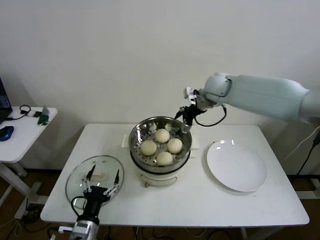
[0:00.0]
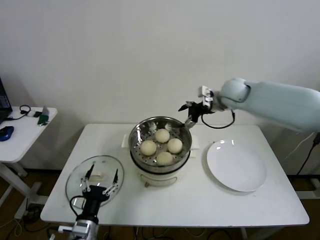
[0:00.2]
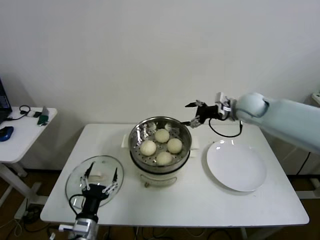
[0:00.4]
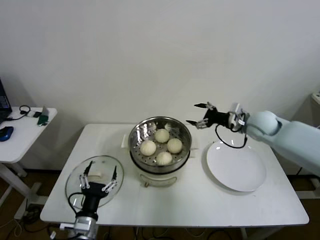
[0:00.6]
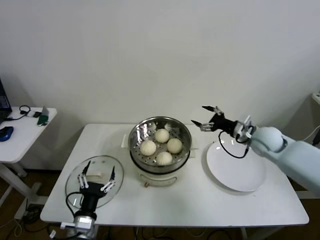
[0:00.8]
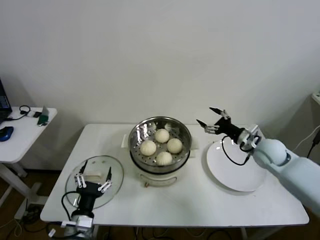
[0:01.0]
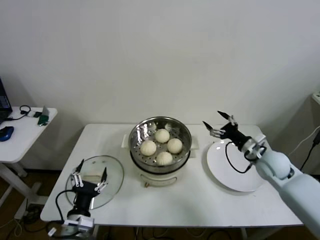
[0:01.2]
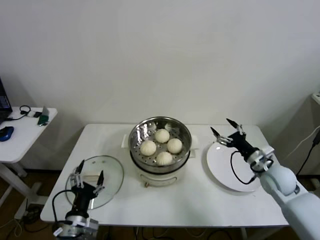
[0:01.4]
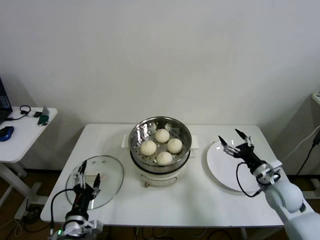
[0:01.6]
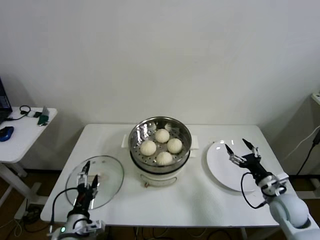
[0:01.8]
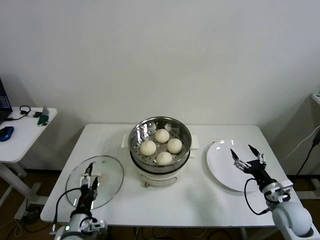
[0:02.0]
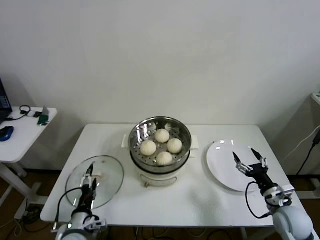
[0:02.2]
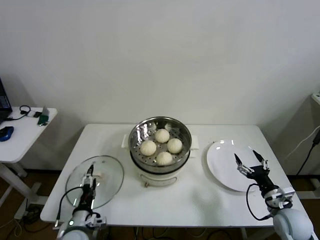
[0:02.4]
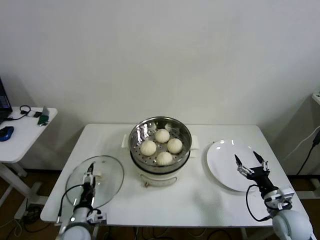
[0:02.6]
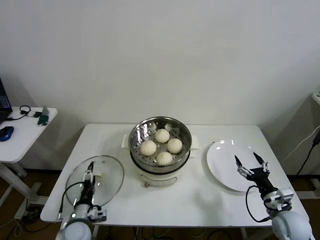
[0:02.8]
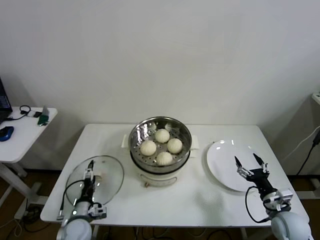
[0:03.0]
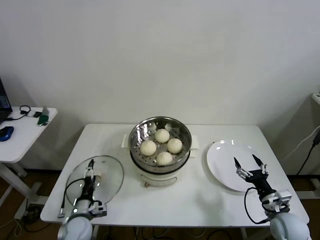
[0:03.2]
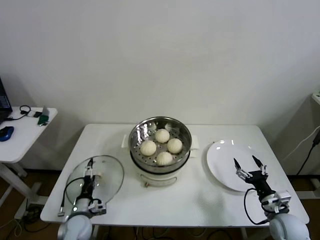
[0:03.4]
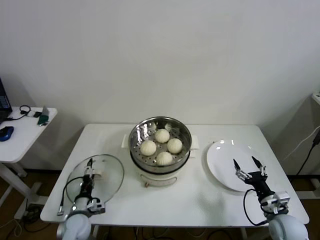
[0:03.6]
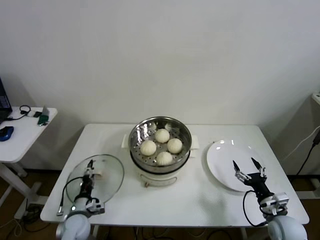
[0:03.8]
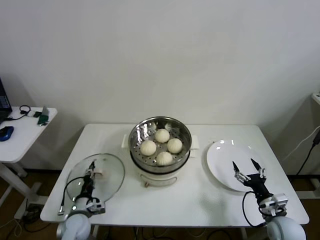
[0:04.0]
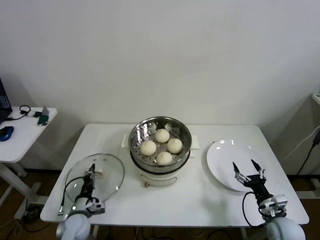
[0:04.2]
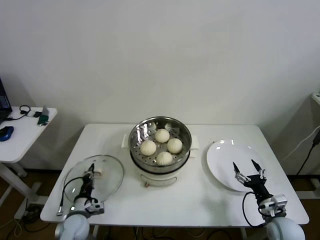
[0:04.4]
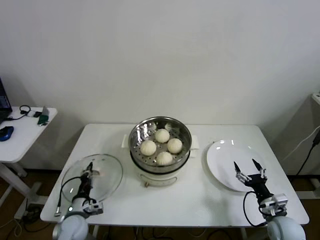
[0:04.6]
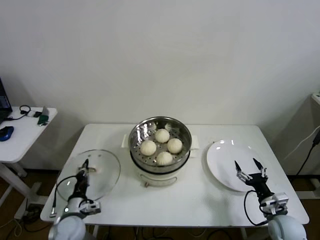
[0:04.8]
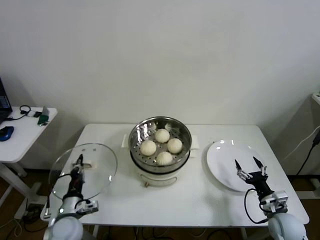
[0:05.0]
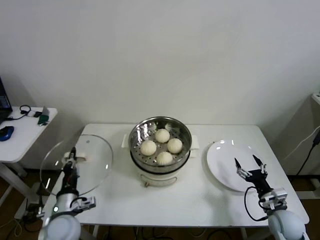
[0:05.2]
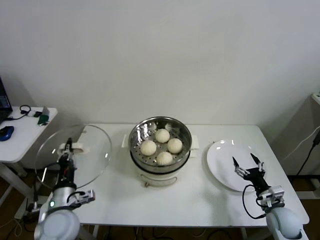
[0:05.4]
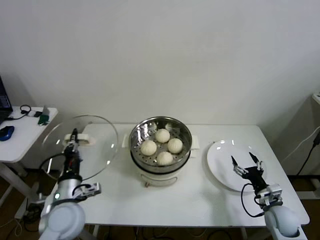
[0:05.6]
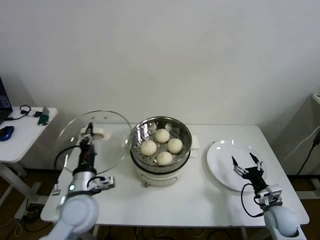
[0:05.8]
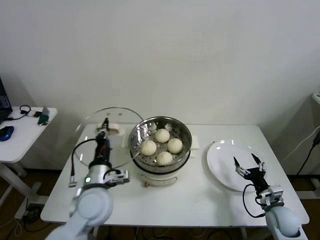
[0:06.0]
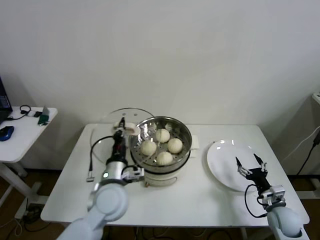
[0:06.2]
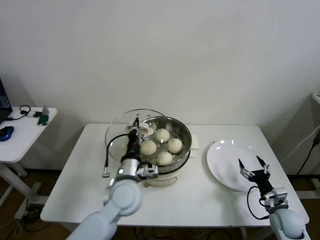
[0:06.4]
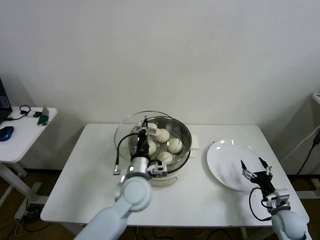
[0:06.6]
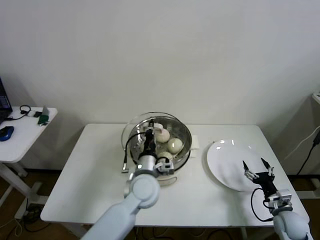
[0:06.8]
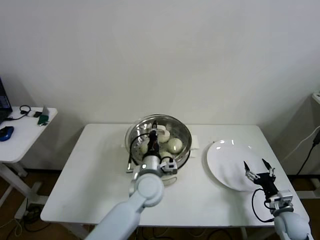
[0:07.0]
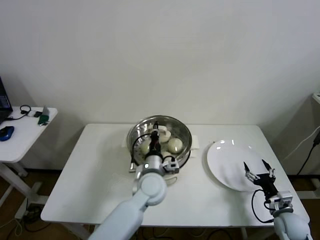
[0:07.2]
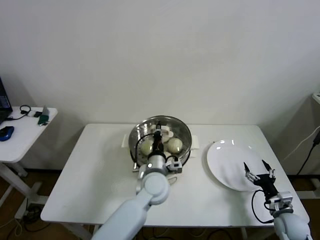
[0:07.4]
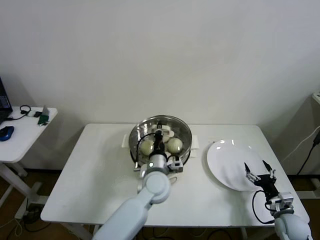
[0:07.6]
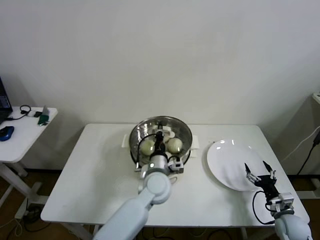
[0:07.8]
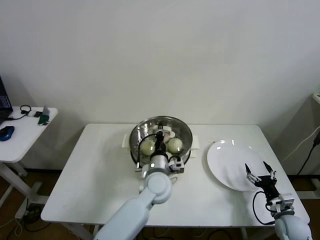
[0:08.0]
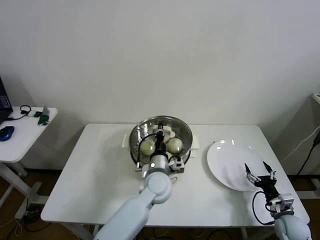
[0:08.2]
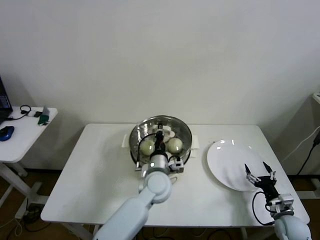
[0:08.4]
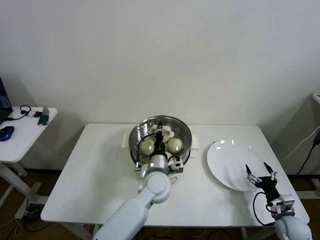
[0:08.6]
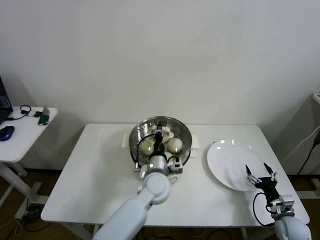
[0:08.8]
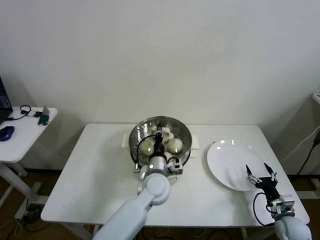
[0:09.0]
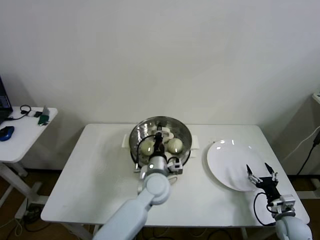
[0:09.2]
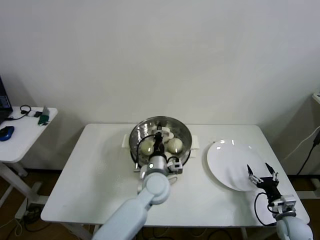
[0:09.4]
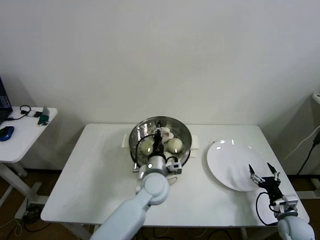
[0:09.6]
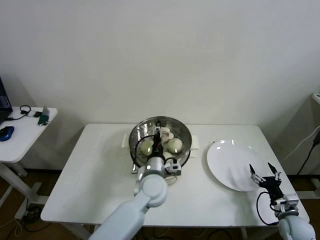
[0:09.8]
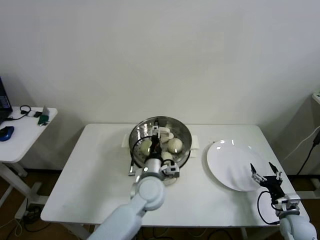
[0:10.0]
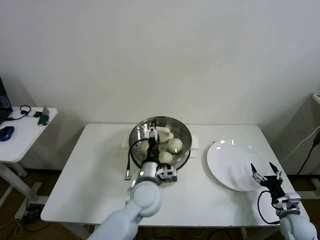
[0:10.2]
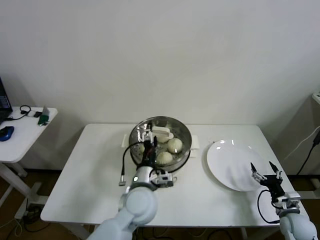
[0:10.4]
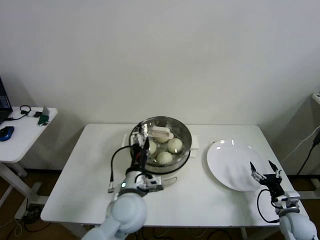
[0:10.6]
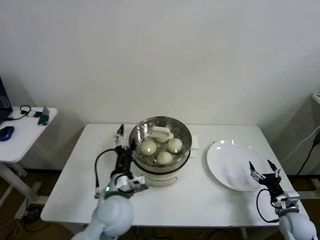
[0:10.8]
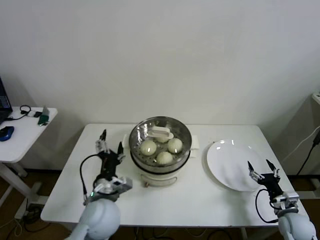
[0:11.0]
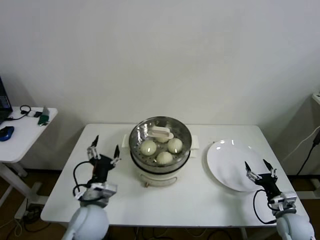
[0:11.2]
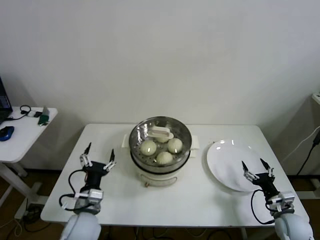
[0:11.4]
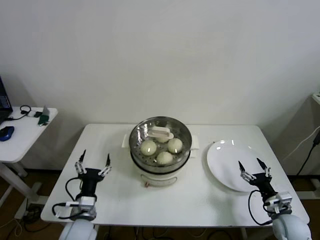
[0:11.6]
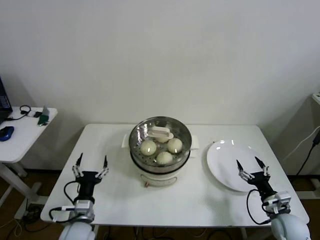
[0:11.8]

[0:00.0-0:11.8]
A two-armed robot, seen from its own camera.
Step, 0:00.0 to 0:04.2: Grasp the pot lid with left gripper.
Step, 0:04.4 to 0:10.4: Place the pot lid on the steamer with left gripper.
0:00.0 to 0:01.4: The right gripper is displaced backward, downward and to the right by some 35 cm.
0:01.4 to 0:03.0: The right gripper is displaced backward and downward by some 15 cm, while the left gripper is displaced downward and forward by roughly 15 cm.
0:03.0 to 0:04.4: The left gripper closes up.
0:04.4 to 0:06.0: The left gripper is displaced upward and to the right by approximately 25 cm.
0:06.0 to 0:07.4: The left gripper heads to the right and forward, covering some 20 cm.
0:07.4 to 0:08.8: The grippers stay close to where they were, moving slightly.
0:08.8 to 0:10.4: The left gripper heads backward, covering approximately 5 cm, and opens up.
0:10.4 to 0:11.8: The right gripper moves approximately 5 cm, while the left gripper goes some 20 cm to the left and downward.

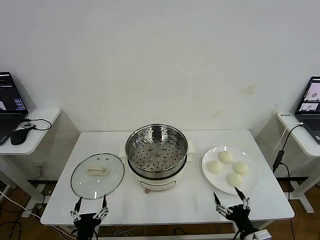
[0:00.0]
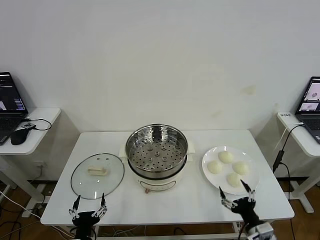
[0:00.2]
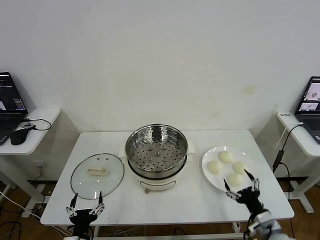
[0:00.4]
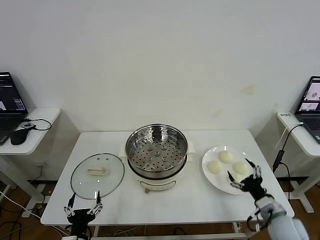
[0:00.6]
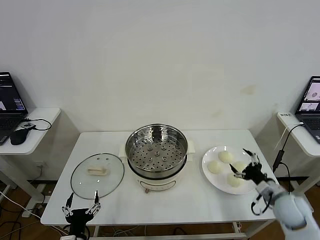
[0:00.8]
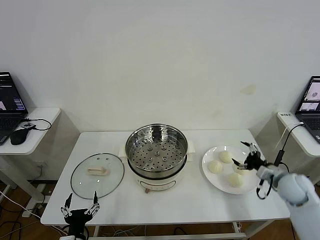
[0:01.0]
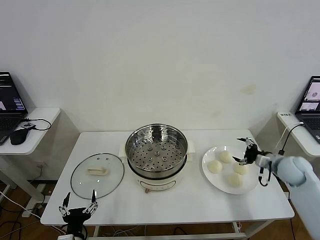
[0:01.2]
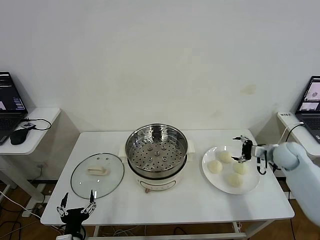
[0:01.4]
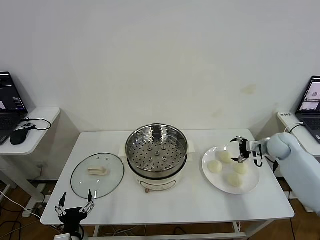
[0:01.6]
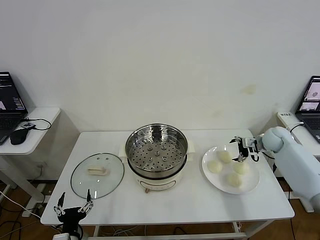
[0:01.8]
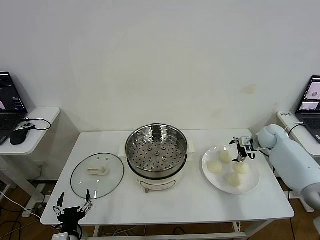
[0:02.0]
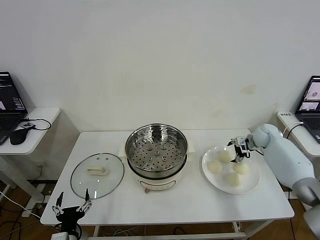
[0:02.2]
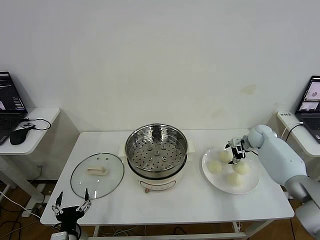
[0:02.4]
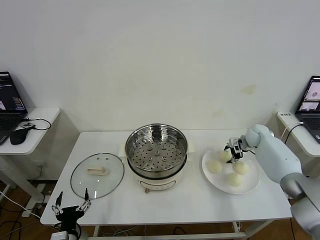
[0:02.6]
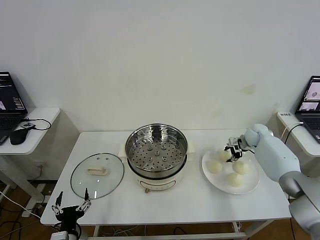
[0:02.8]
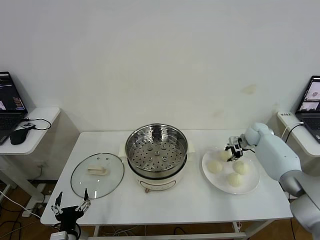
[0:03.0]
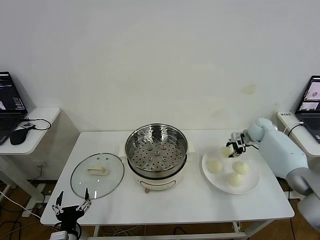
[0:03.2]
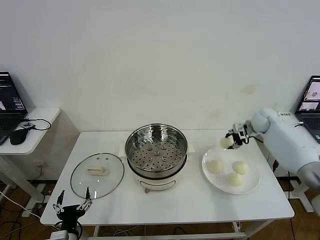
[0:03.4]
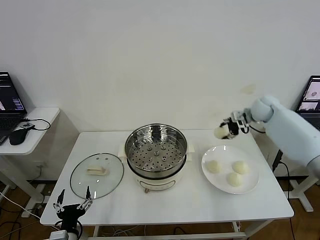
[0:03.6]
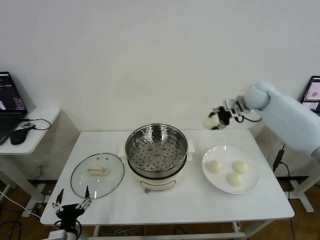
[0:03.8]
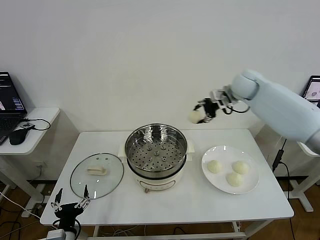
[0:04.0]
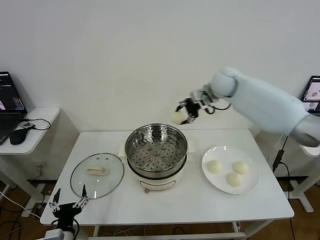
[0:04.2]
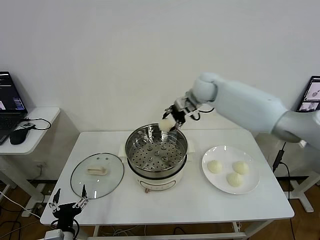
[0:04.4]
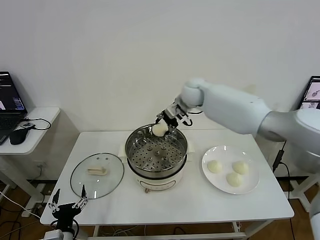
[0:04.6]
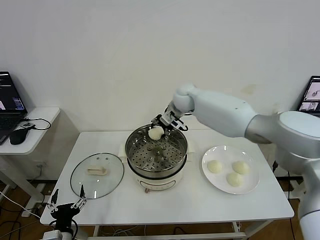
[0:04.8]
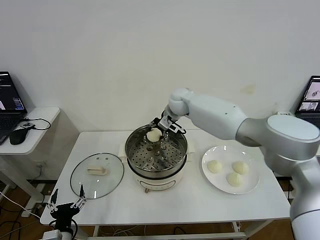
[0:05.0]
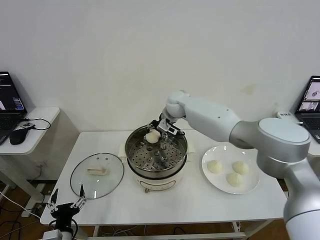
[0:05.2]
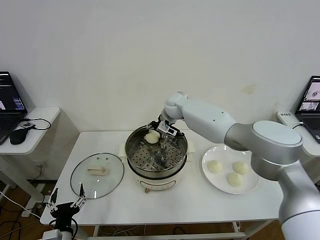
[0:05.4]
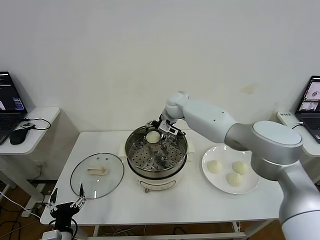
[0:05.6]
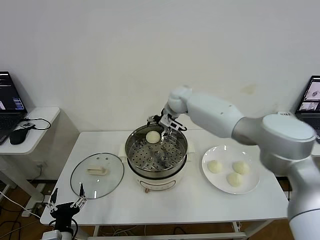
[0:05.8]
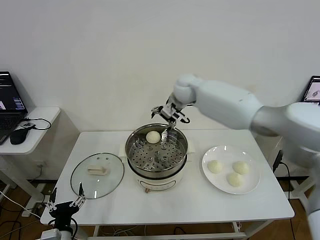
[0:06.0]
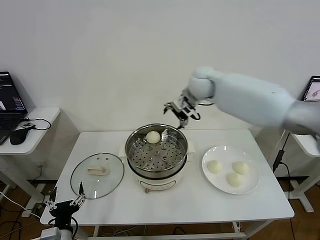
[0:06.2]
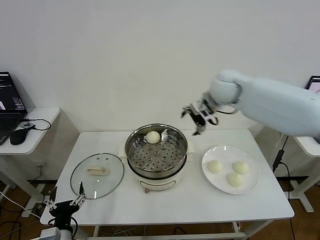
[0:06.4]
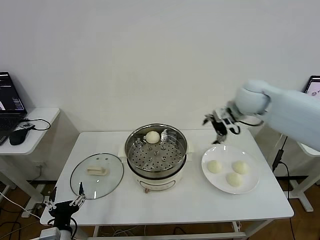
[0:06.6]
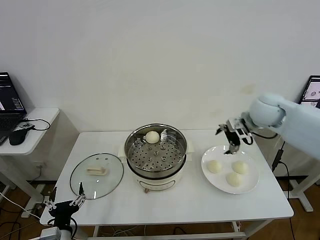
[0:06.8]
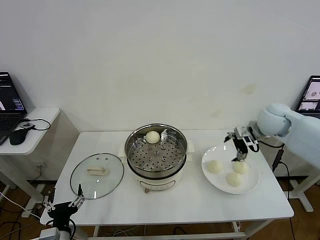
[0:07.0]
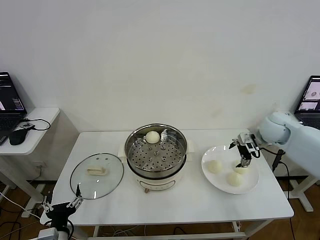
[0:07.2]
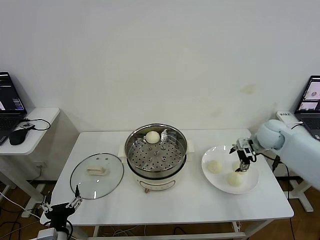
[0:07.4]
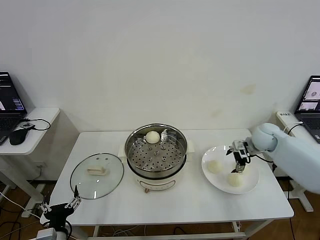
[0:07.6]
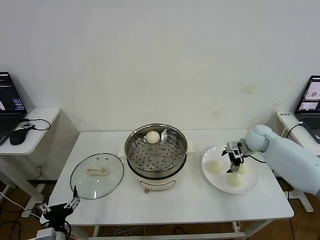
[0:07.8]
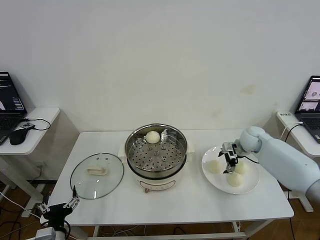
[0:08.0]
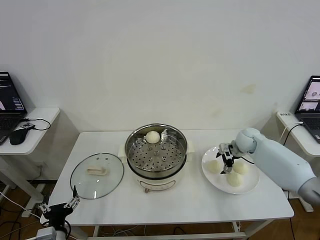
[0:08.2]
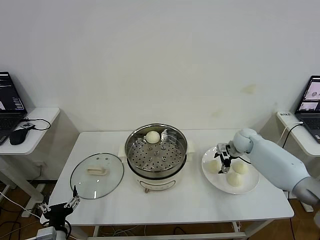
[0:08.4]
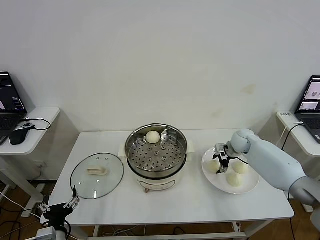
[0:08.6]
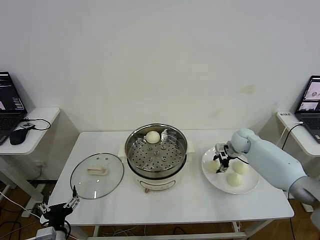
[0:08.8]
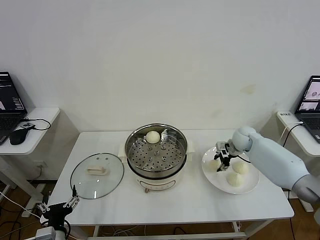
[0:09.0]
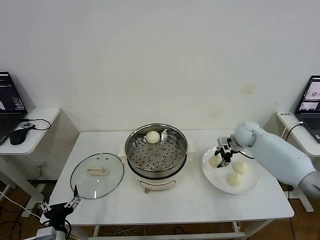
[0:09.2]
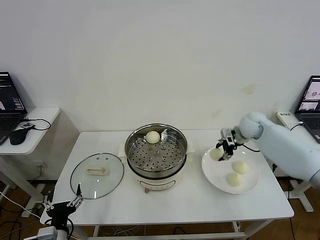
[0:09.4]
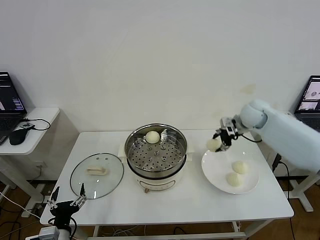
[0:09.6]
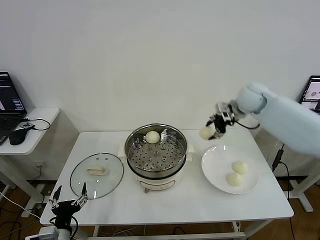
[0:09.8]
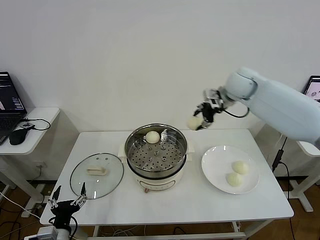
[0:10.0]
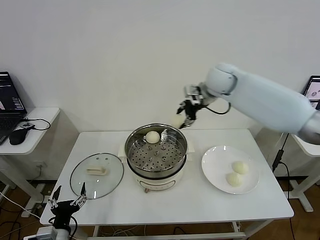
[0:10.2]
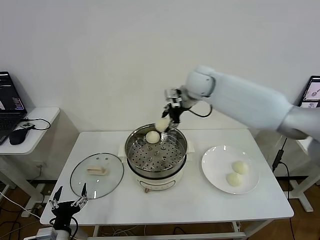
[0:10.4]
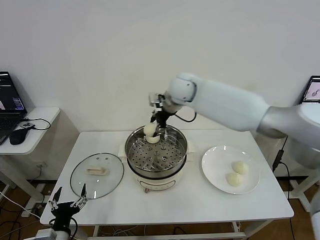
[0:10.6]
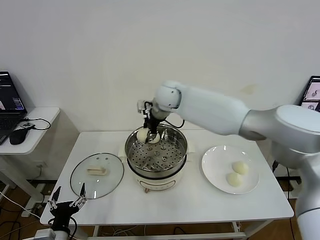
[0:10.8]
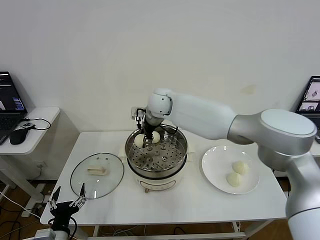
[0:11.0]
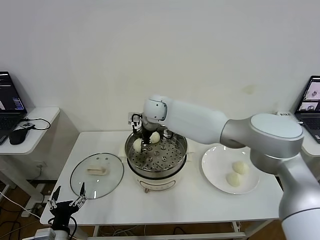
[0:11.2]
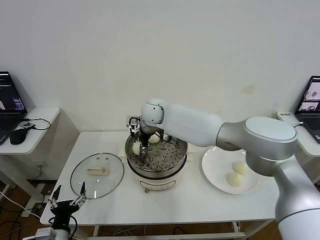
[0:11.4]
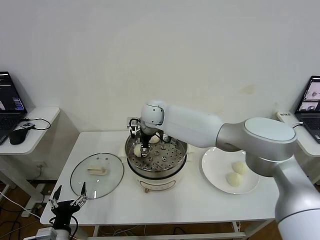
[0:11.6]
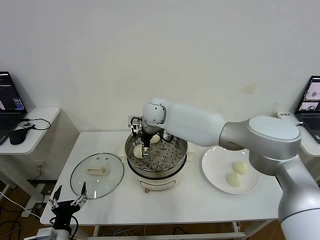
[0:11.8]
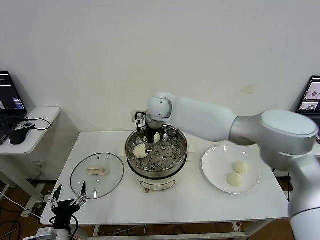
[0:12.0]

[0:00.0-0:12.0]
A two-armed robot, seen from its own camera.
Step, 0:00.0 to 0:02.8: Grasp the baozi in the plate with right gripper.
Step, 0:03.0 to 0:05.6: Place the baozi on the steamer with right gripper.
Step, 0:05.8 to 0:08.8: Grasp the baozi in the plate with right gripper.
Step, 0:09.0 to 0:11.6: Place the baozi on the steamer with right gripper.
0:01.6 to 0:03.0: The right gripper travels forward by approximately 10 cm, and closes.
0:03.0 to 0:04.4: The right gripper is displaced to the left and upward by approximately 35 cm.
0:04.4 to 0:06.0: The right gripper reaches approximately 10 cm downward, then returns, and opens.
0:06.0 to 0:07.6: The right gripper travels to the right and downward by roughly 30 cm.
0:07.6 to 0:09.0: The right gripper ends up approximately 5 cm from where it was, and closes its fingers.
0:09.0 to 0:10.4: The right gripper heads to the left and upward, covering approximately 35 cm.
0:10.4 to 0:12.0: The right gripper heads to the left and downward, covering roughly 10 cm, and opens its fingers.
